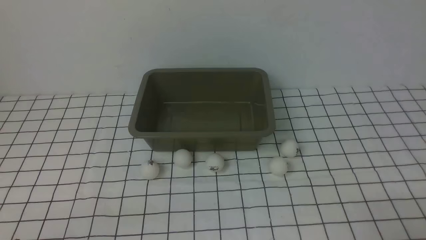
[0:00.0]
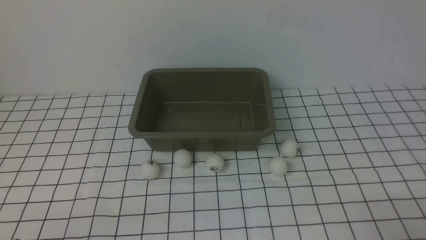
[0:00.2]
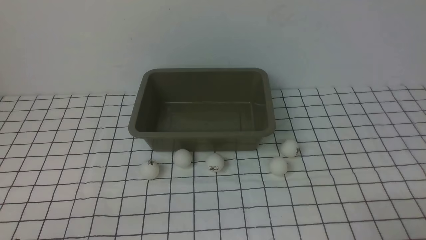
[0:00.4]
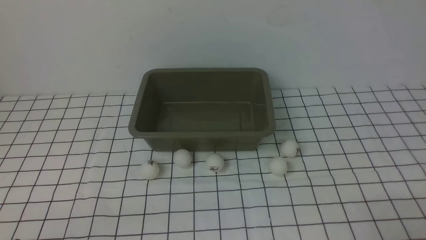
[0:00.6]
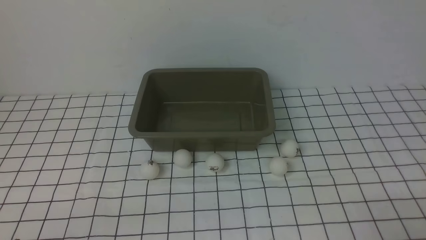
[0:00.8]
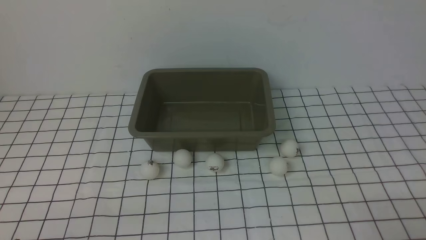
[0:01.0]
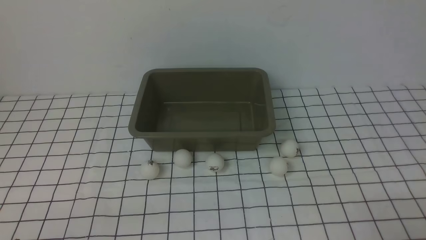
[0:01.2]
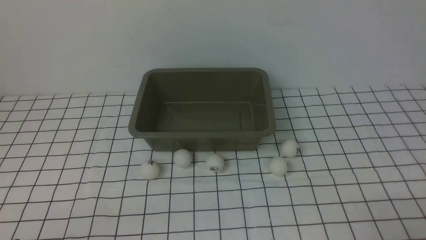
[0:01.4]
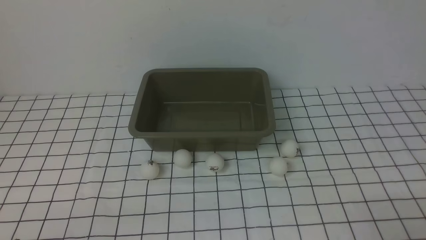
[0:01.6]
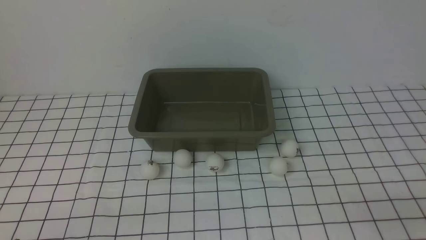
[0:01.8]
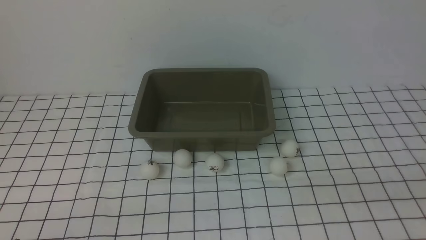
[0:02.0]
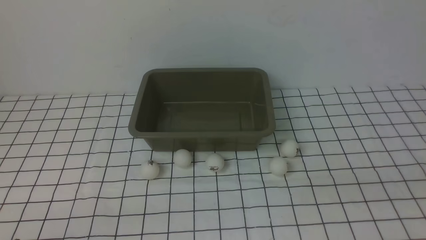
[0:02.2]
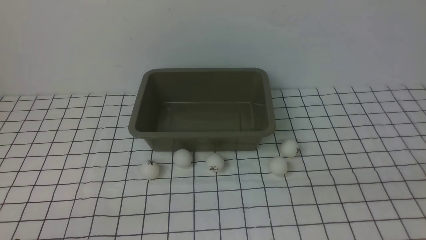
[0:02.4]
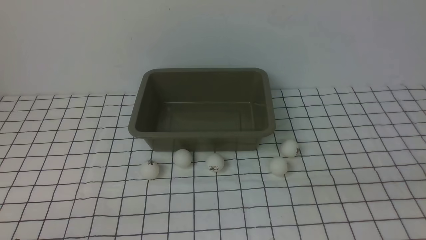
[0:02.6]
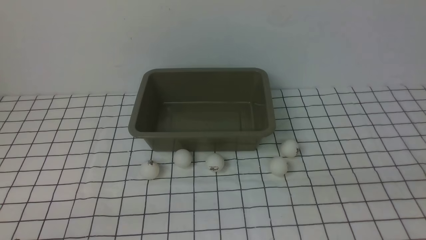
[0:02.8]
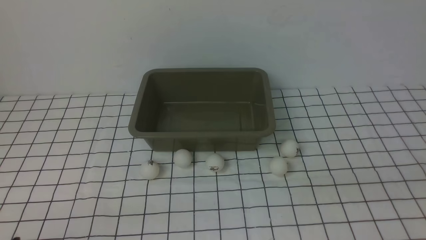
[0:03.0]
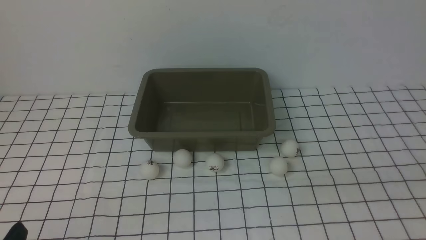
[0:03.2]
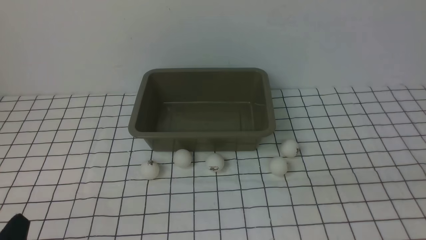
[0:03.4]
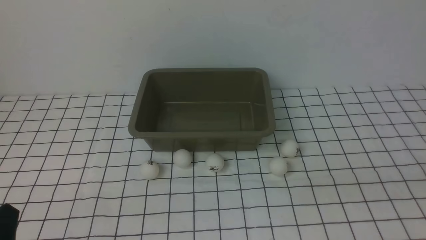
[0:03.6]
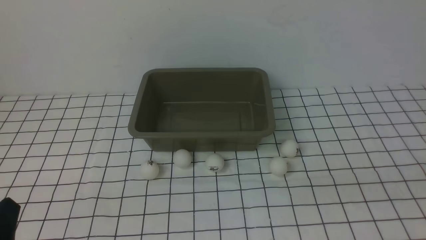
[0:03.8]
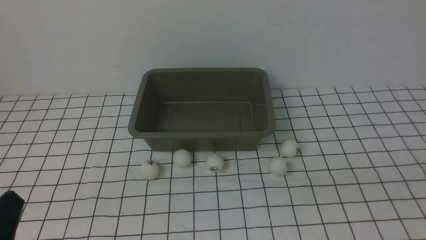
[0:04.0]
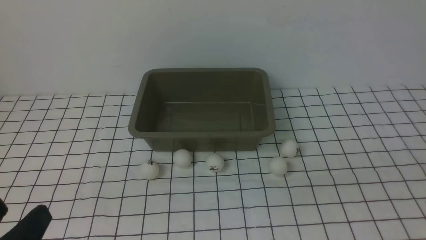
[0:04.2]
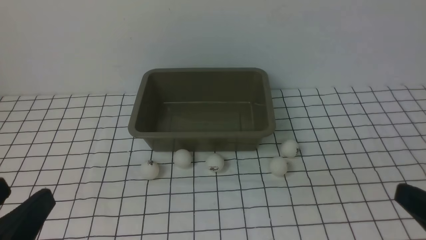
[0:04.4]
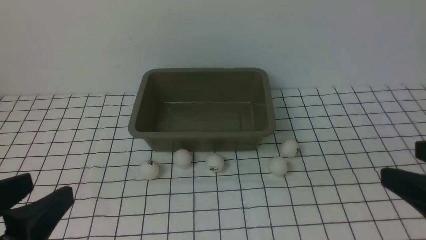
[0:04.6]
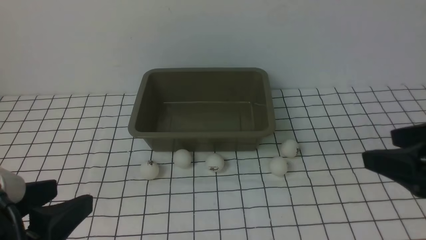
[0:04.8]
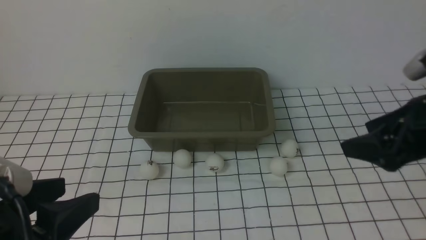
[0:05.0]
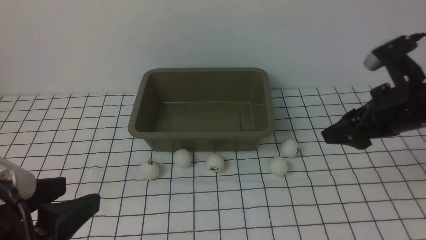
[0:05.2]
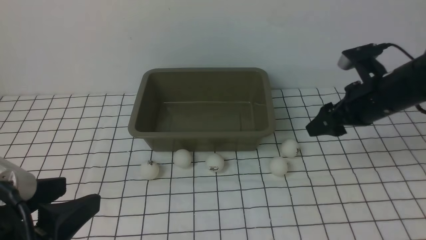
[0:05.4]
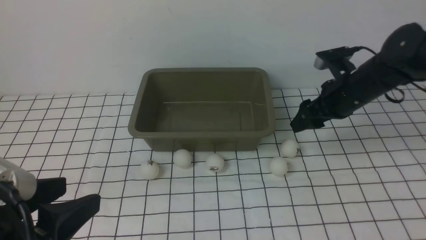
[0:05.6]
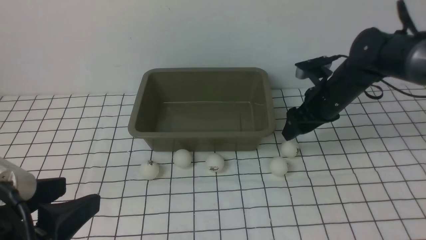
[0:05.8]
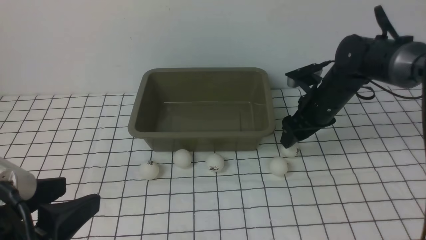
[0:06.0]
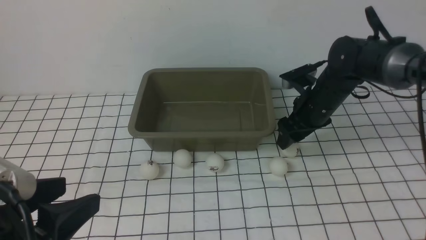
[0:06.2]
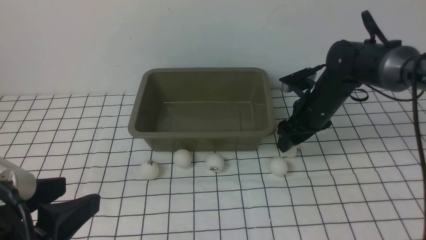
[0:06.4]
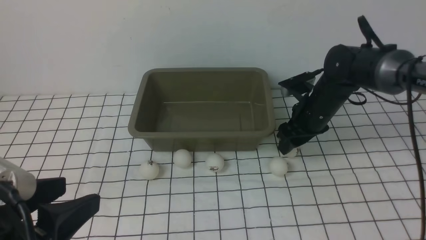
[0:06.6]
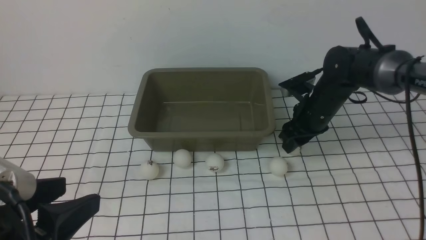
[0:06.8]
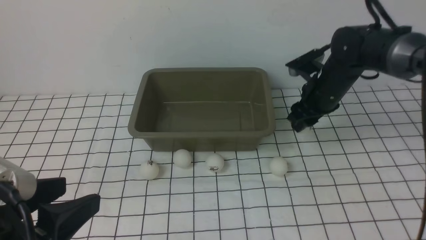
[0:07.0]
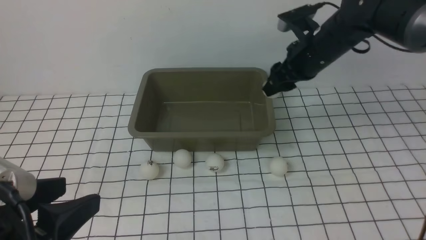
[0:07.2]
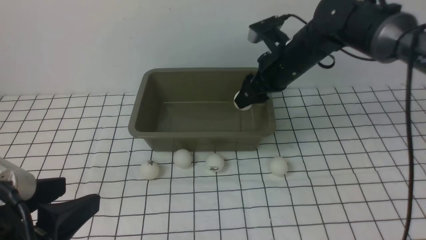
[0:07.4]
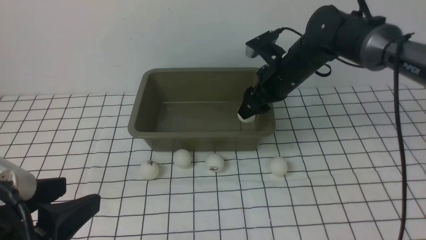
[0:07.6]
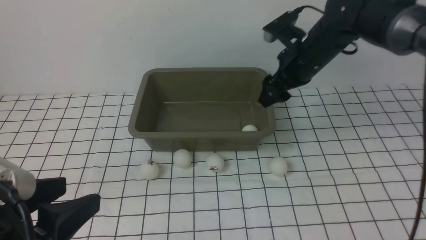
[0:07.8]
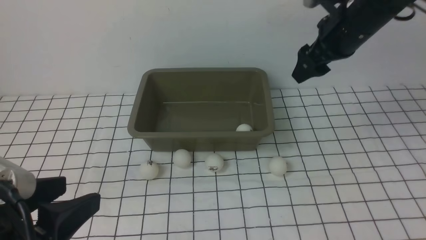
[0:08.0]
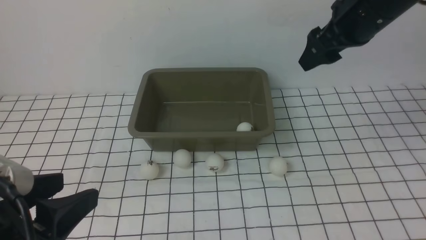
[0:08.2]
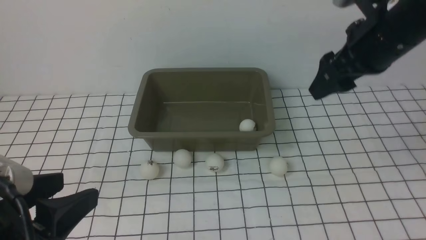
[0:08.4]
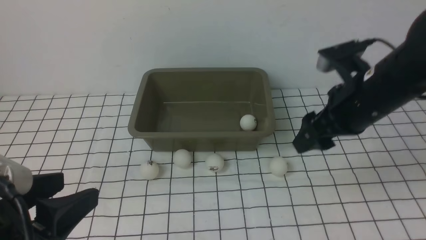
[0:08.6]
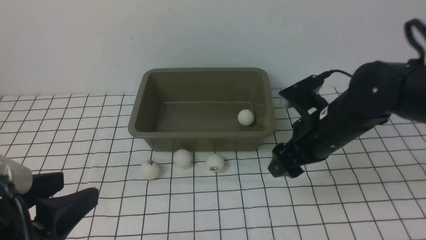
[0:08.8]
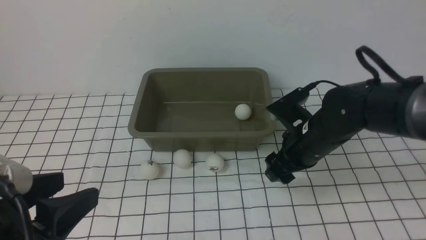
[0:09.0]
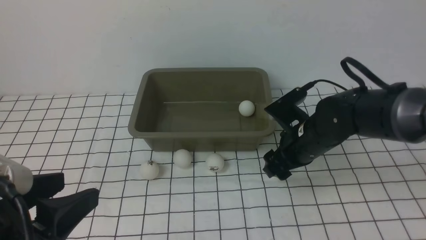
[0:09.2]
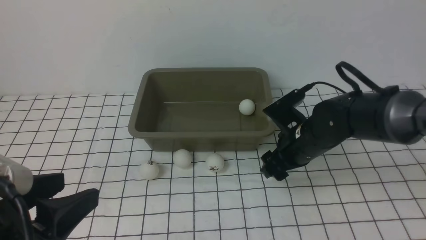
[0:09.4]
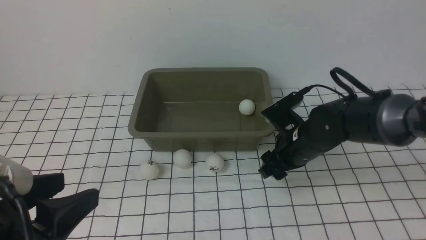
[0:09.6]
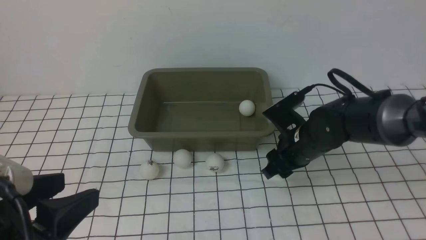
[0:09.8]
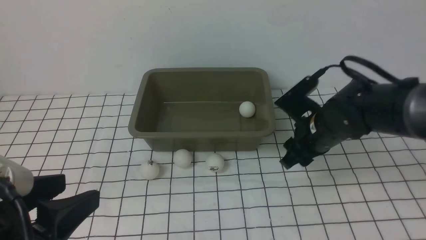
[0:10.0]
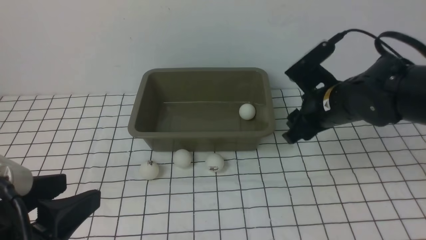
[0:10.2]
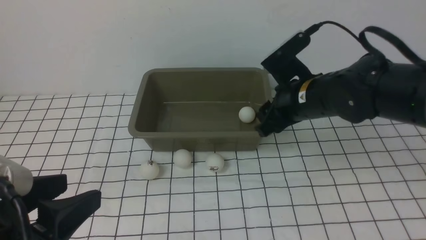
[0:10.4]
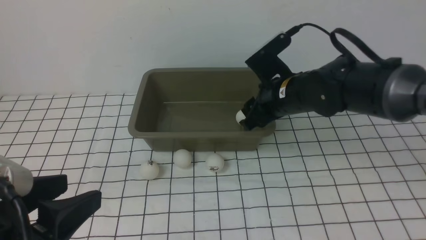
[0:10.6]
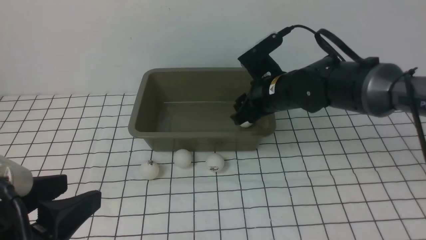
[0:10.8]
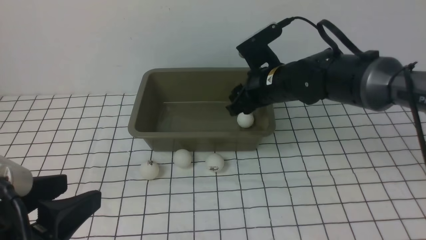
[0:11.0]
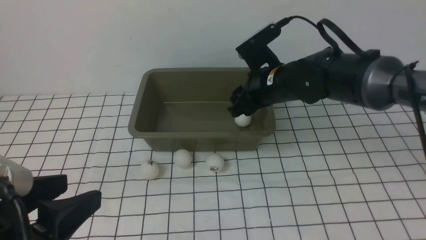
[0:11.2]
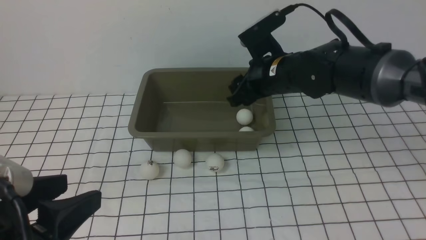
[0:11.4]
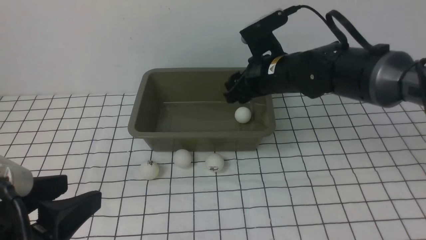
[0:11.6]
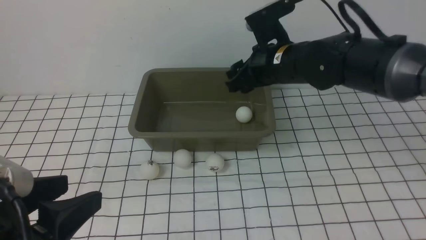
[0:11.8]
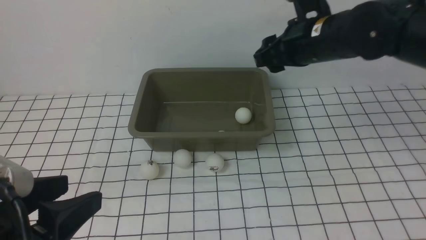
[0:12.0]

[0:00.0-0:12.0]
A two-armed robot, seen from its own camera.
Step, 0:00.0 to 0:07.0: use the right arm to clamp the table tennis ball closest to it.
Step, 0:07.2 to 0:07.8: use the right arm to put the table tennis ball into the box.
Step, 0:08.0 to 0:10.0: use the right arm to clamp the table tennis ball closest to it.
Step, 0:10.2 to 0:11.4: use the right arm to put the table tennis ball into the box.
0:03.0 to 0:04.4: The right gripper moves forward, about 5 cm, while the left gripper heads upward, covering about 10 cm.
0:04.4 to 0:06.0: The right gripper is displaced forward by roughly 35 cm, while the left gripper goes approximately 5 cm forward.
0:06.0 to 0:07.6: The right gripper heads upward, covering some 5 cm, and closes and opens again.
0:07.6 to 0:09.0: The right gripper travels backward and downward by approximately 15 cm.
0:09.0 to 0:10.4: The right gripper moves upward, about 5 cm, and closes up.
0:10.4 to 0:12.0: The right gripper is displaced upward by about 10 cm.

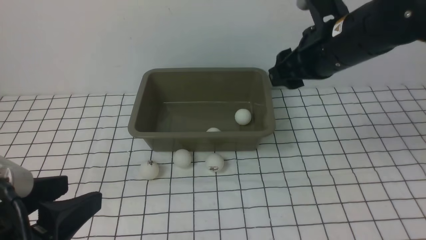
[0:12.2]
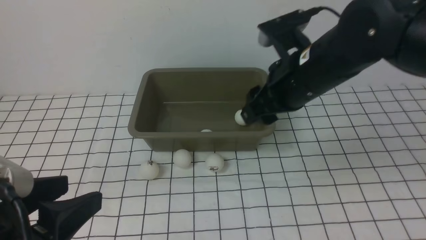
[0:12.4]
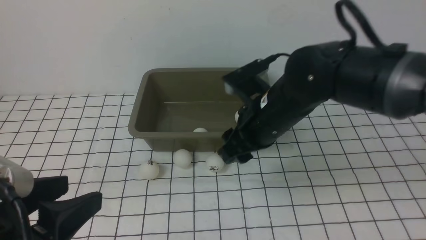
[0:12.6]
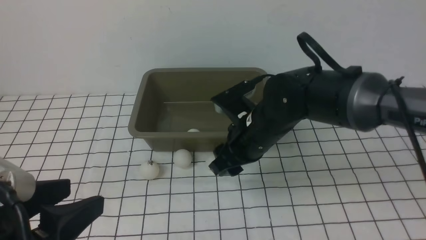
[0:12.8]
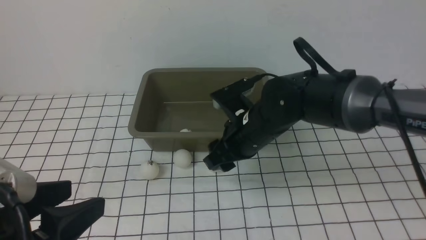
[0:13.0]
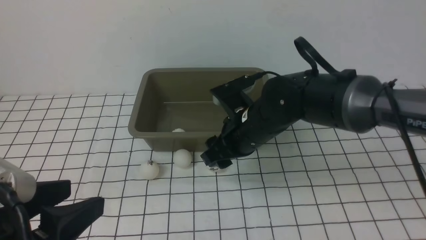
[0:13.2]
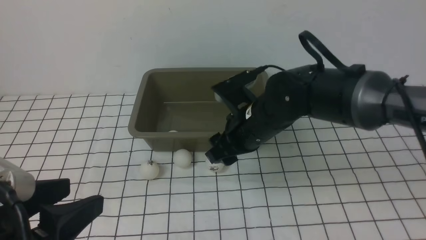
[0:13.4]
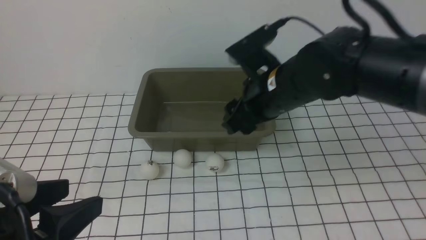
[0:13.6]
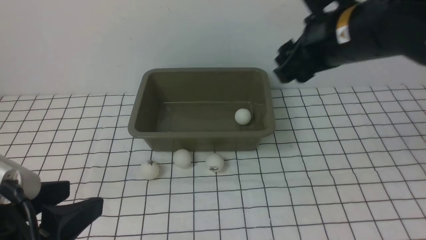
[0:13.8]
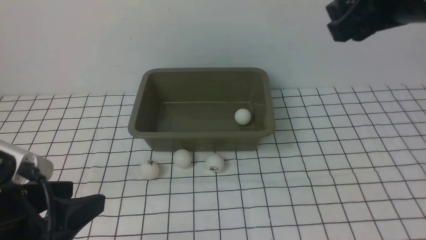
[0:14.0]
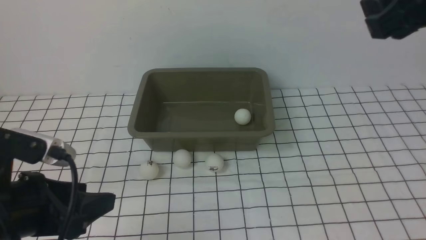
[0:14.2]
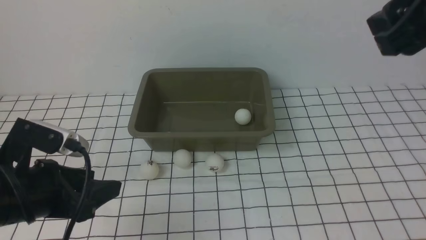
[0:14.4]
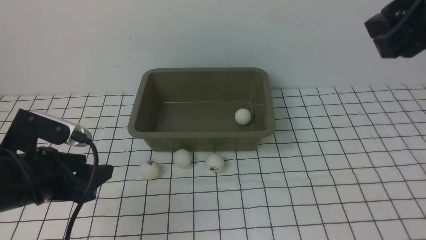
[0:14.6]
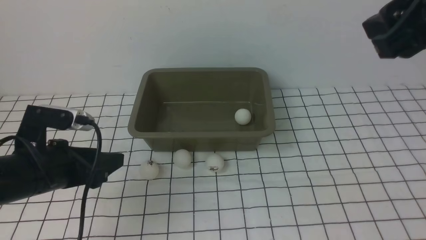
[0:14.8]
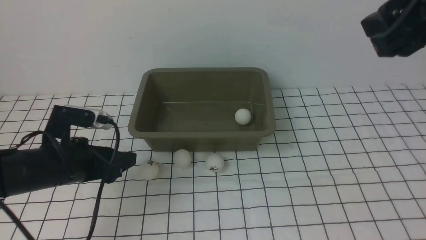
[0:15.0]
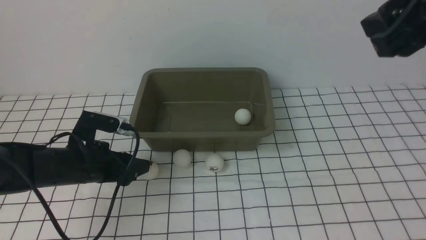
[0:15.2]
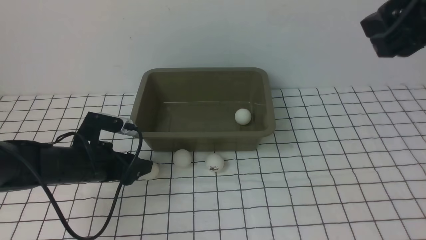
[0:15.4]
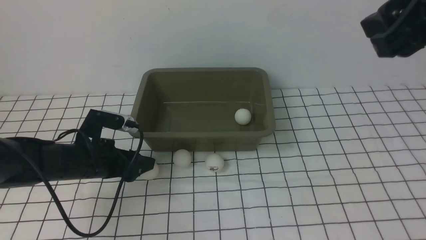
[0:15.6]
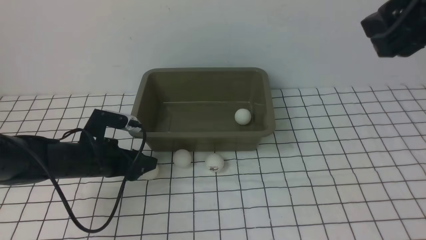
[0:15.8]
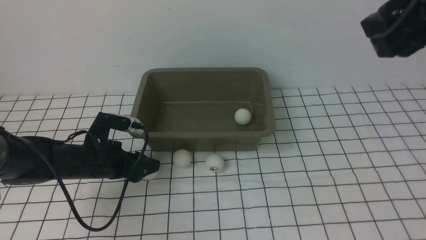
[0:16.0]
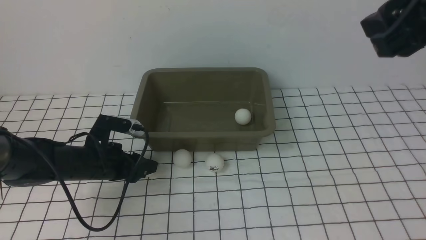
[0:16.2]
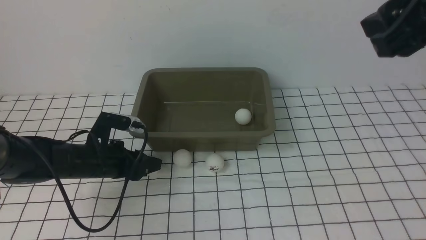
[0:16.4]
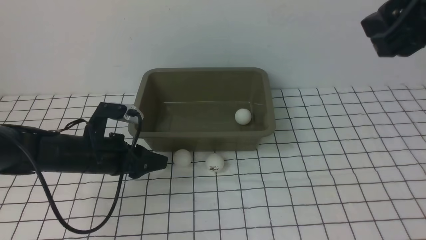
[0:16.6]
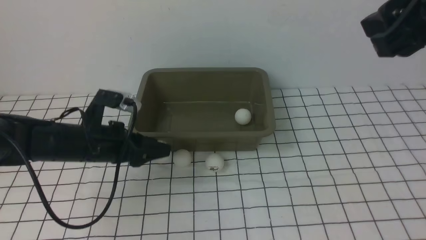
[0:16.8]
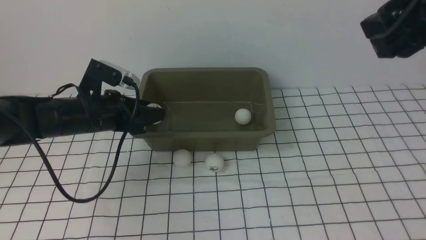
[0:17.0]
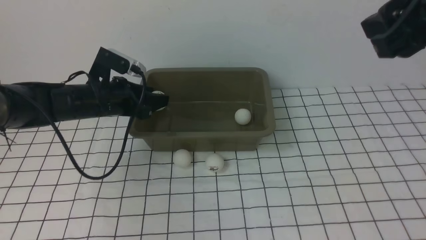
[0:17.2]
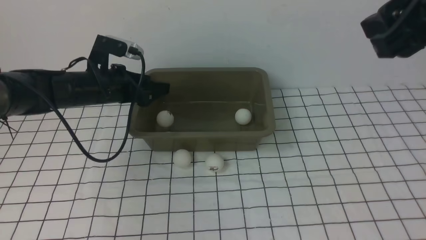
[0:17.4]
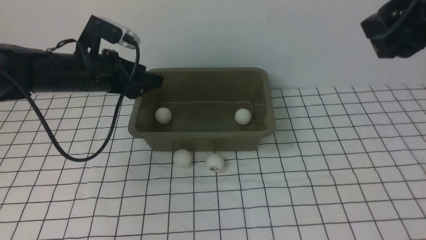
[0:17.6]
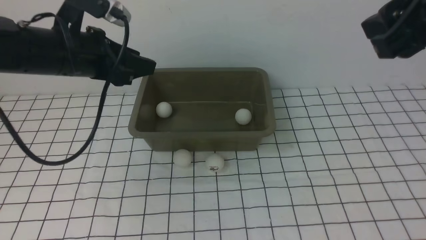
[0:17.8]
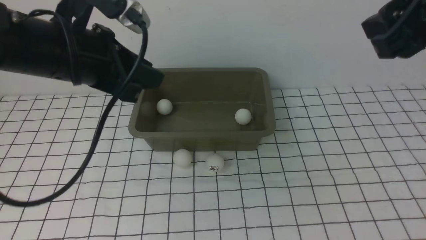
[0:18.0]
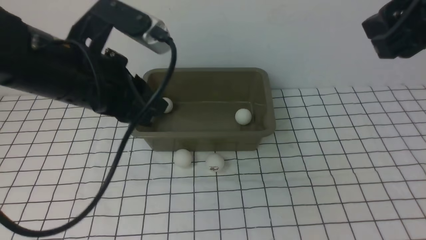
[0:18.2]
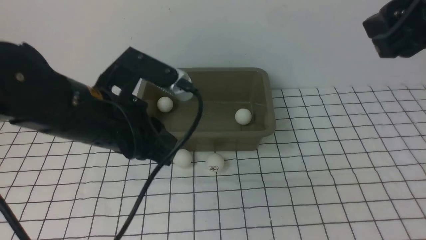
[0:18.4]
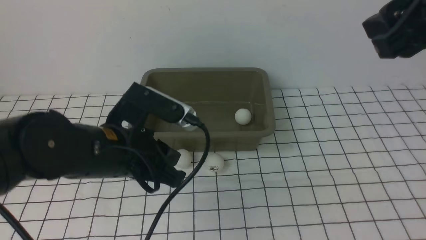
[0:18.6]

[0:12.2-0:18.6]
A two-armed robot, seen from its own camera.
Step, 0:12.2 to 0:16.6: use the left arm to clamp the table tennis ball closest to it.
Step, 0:16.8 to 0:18.0: use the left arm to put the table tennis ball into the box.
0:12.2 to 0:13.8: The right gripper goes some 15 cm upward, backward and to the right.
0:13.8 to 0:15.4: The left gripper is displaced forward and downward by about 20 cm.
0:15.4 to 0:17.0: The left gripper is displaced upward and forward by some 10 cm.
0:17.0 to 0:18.6: The left gripper shifts approximately 15 cm backward, to the right and upward, and closes.
